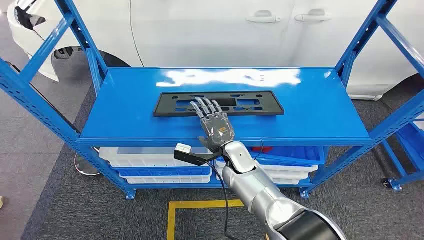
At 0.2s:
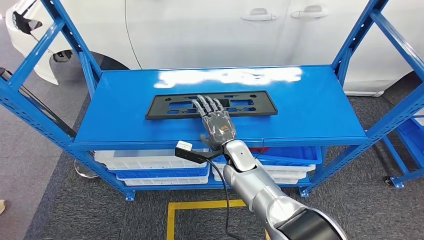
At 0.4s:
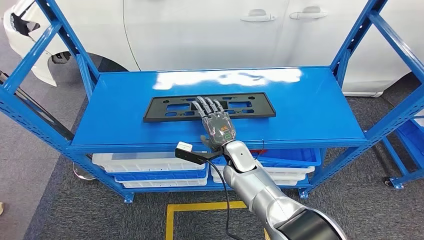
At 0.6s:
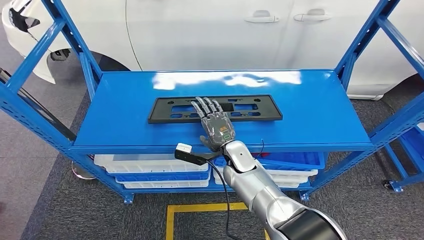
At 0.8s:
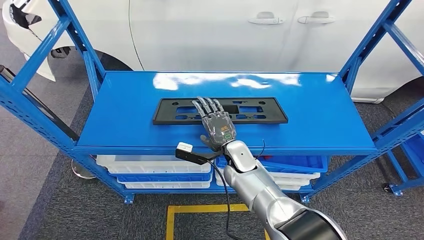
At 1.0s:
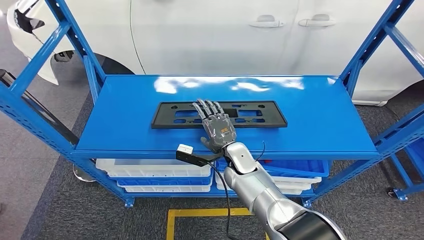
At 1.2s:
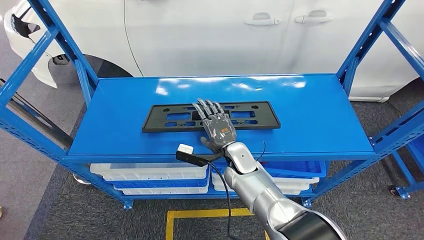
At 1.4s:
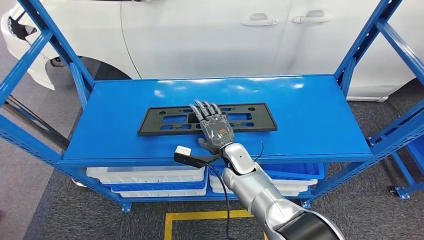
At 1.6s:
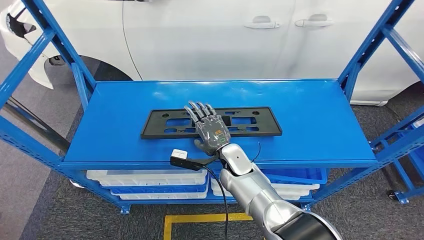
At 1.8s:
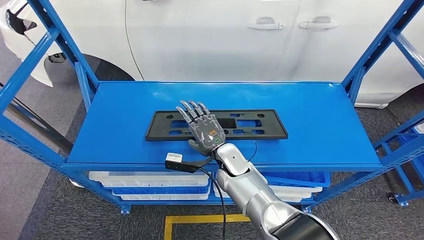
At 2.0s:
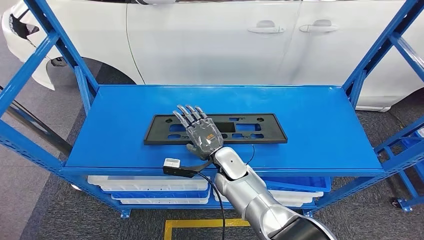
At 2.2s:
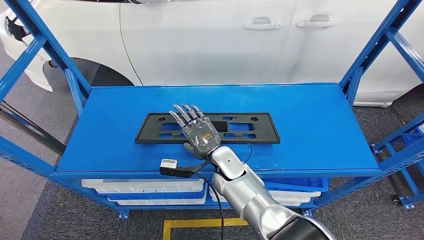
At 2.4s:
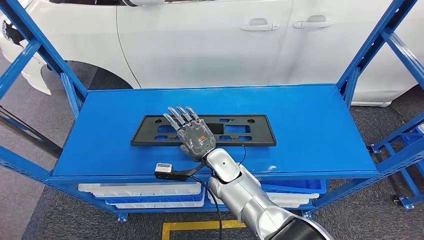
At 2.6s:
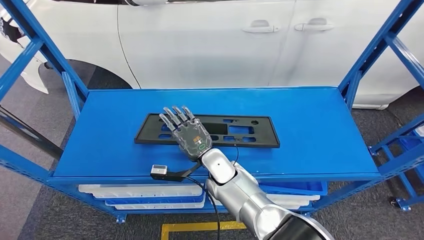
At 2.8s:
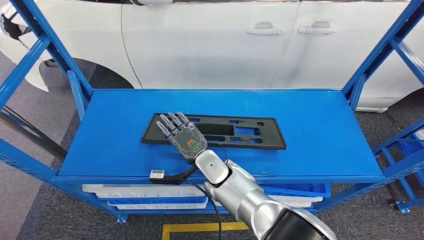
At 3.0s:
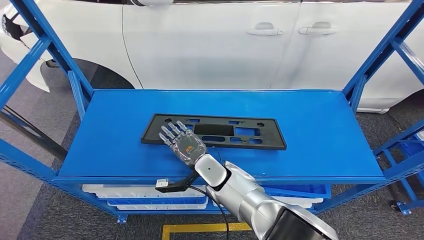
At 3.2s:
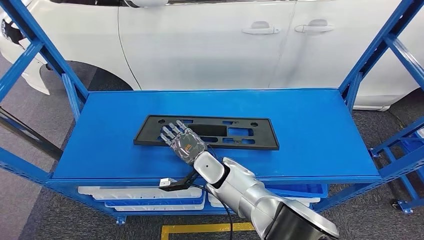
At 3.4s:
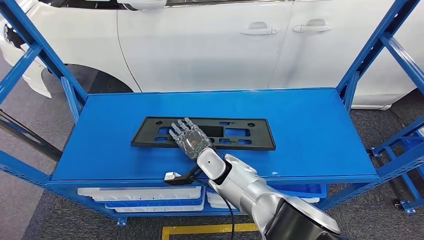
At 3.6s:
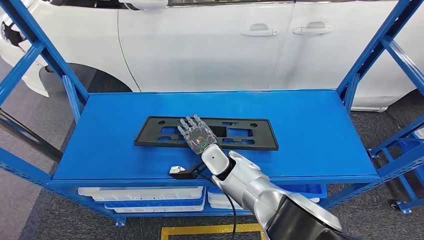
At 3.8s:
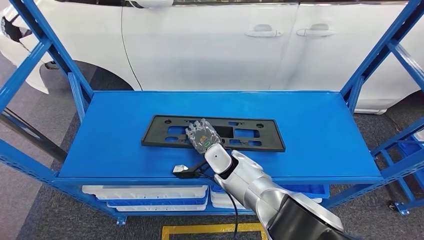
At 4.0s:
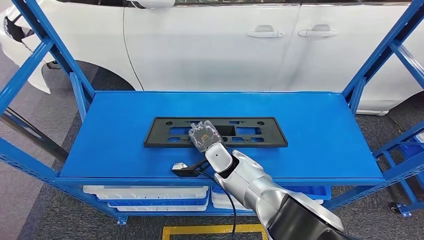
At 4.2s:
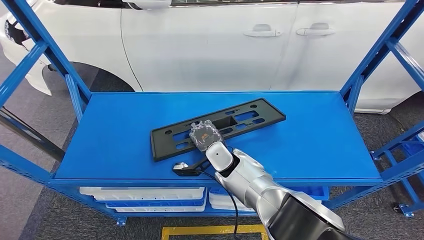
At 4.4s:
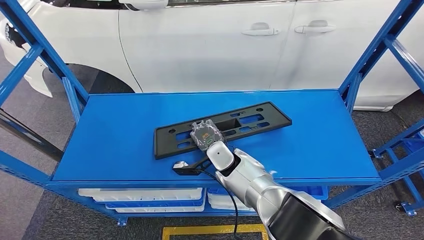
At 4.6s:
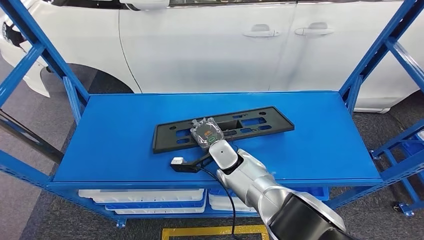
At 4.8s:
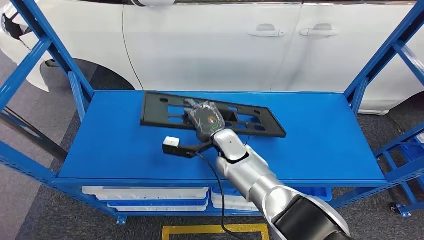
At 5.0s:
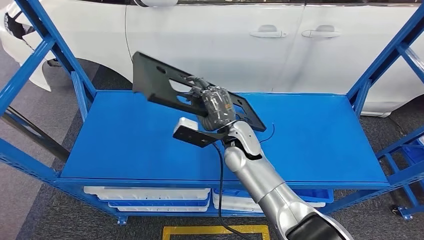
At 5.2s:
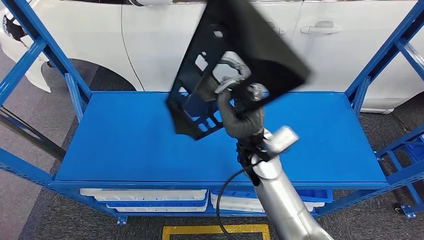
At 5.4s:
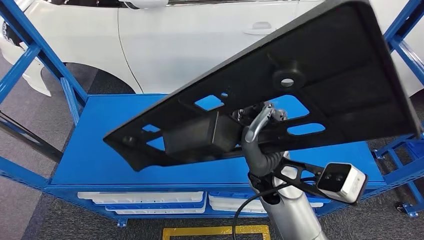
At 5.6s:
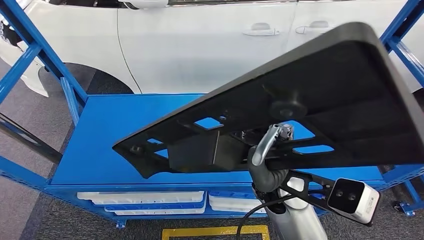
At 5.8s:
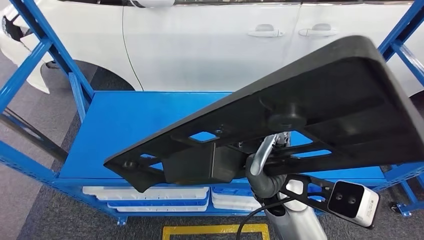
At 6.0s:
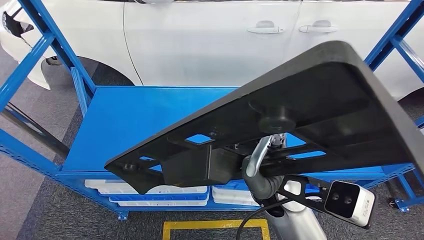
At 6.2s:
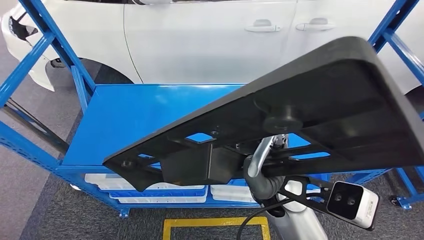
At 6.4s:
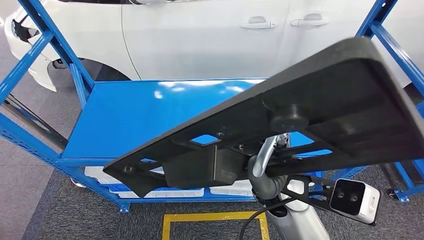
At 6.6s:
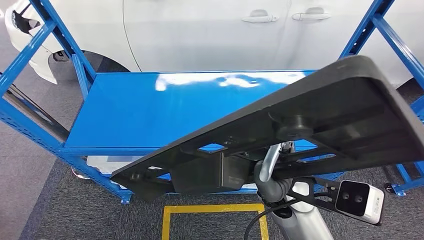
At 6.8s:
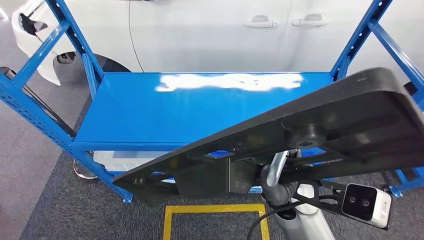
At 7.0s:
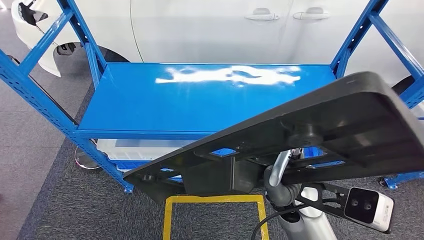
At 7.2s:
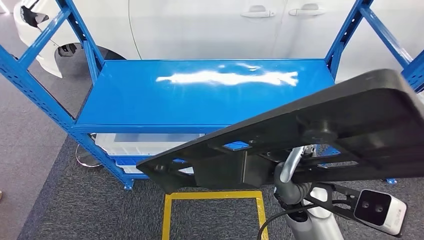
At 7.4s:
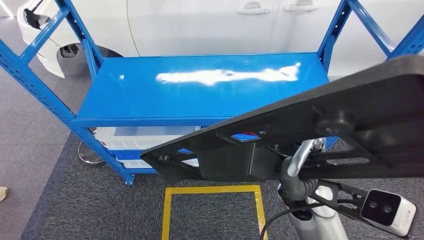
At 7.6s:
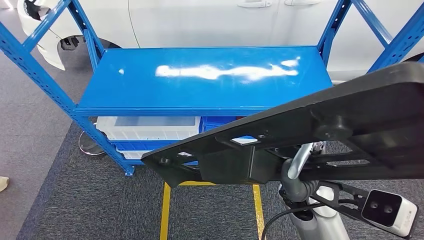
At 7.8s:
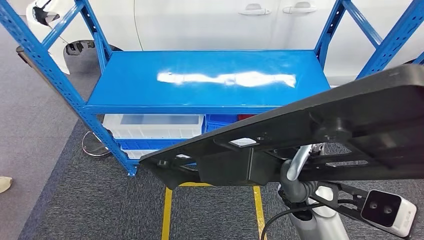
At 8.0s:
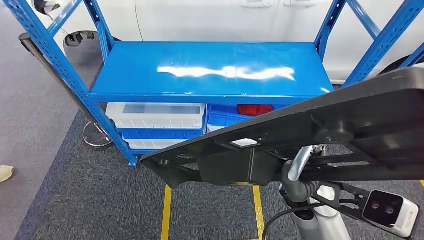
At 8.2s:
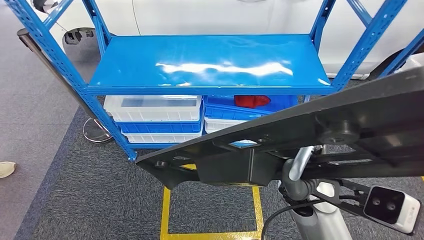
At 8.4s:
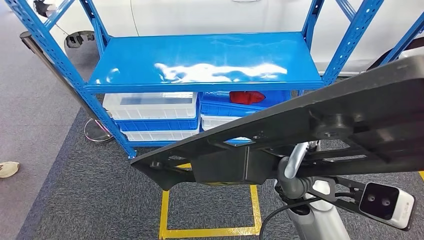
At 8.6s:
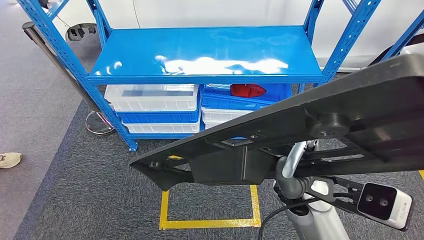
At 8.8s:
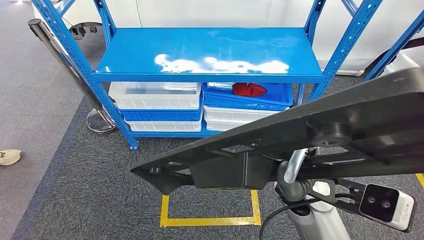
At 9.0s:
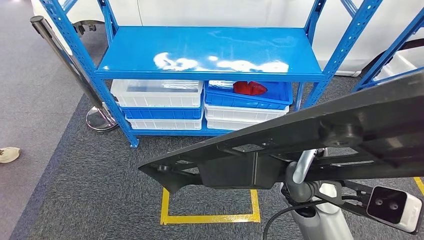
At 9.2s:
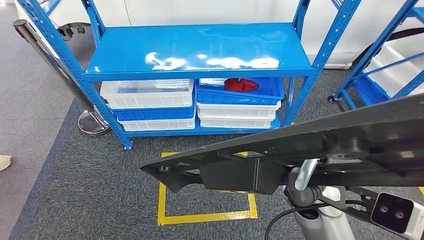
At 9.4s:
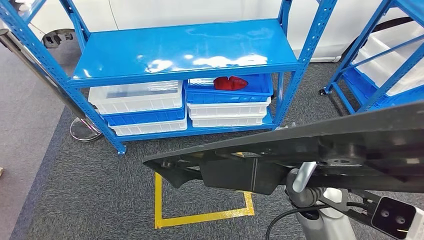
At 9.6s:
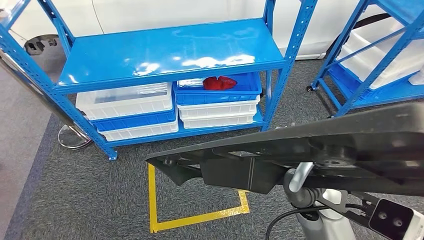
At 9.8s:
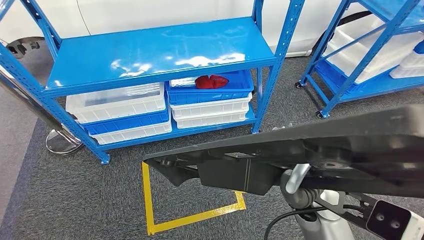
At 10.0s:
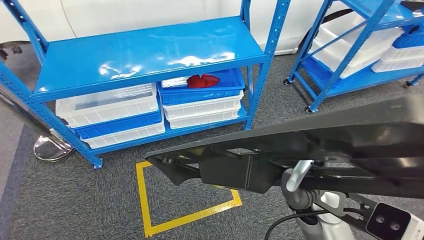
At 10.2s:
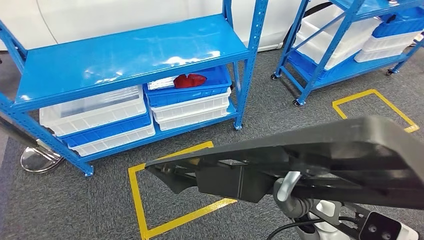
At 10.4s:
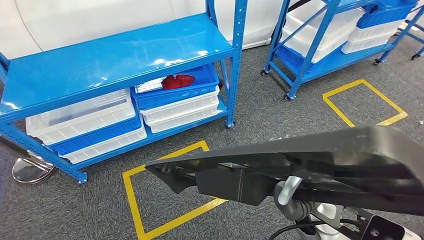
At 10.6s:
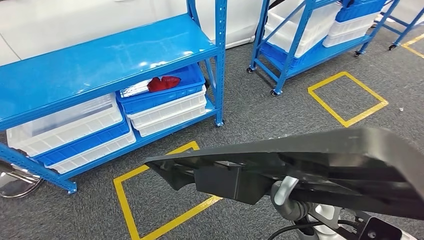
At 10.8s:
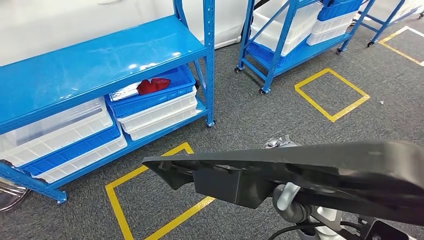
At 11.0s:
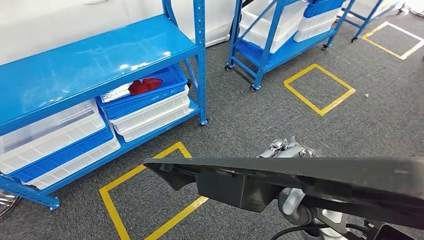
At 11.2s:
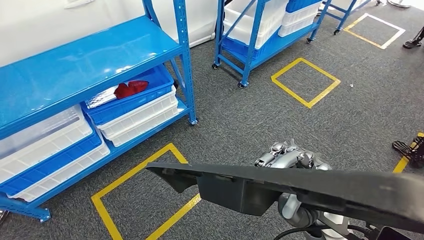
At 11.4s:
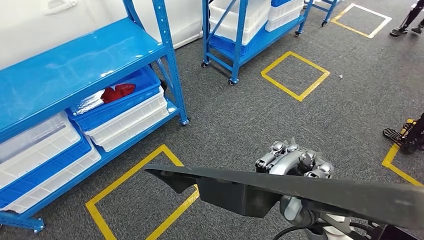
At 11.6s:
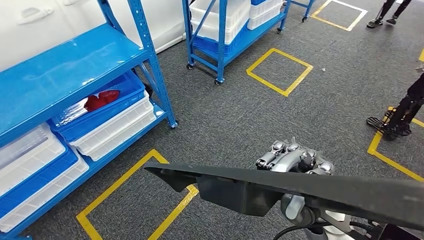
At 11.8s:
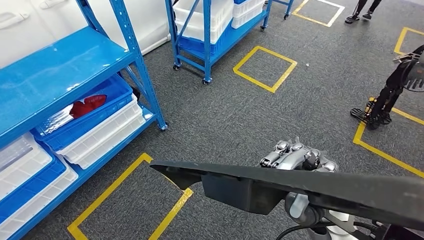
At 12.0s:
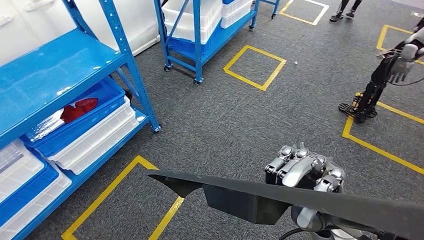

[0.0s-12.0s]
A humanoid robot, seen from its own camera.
Step, 0.0s to 6.0s: Pick up the small component from the shelf.

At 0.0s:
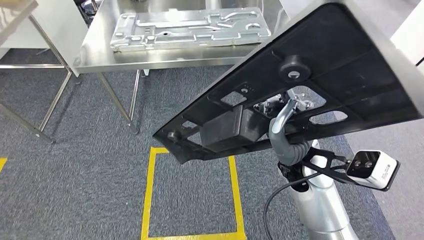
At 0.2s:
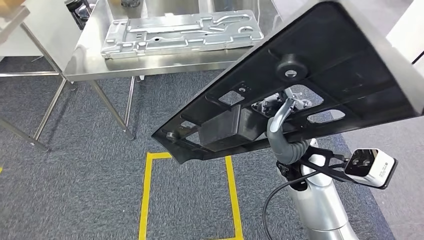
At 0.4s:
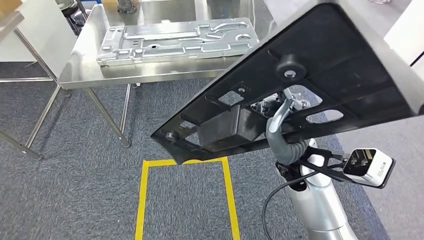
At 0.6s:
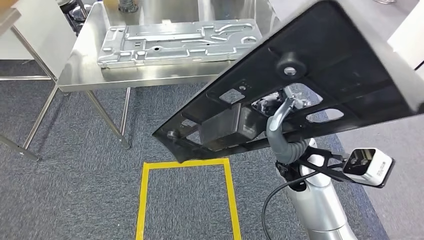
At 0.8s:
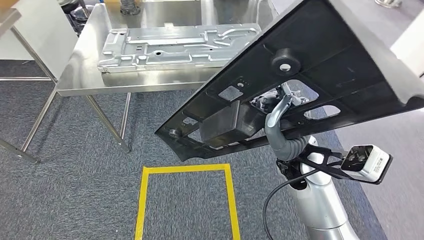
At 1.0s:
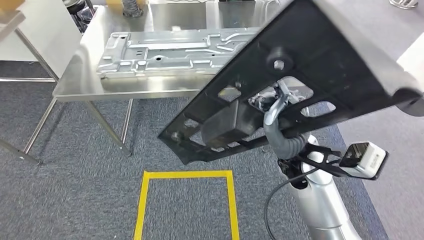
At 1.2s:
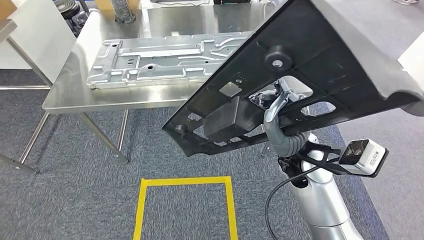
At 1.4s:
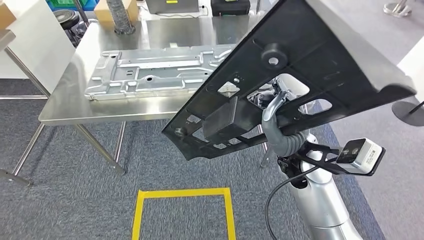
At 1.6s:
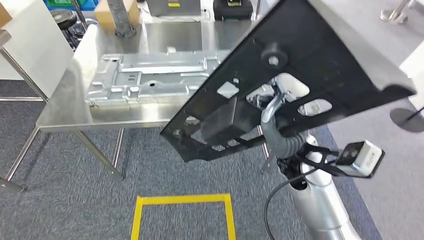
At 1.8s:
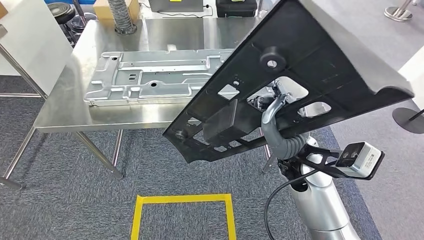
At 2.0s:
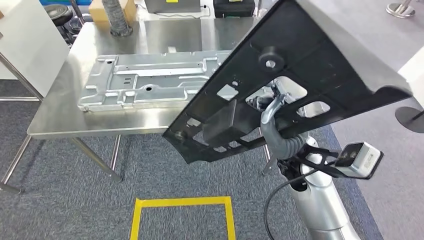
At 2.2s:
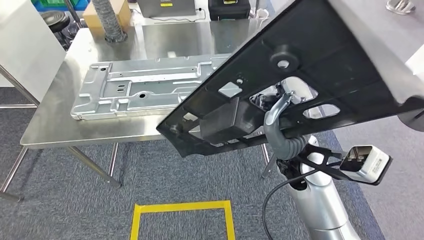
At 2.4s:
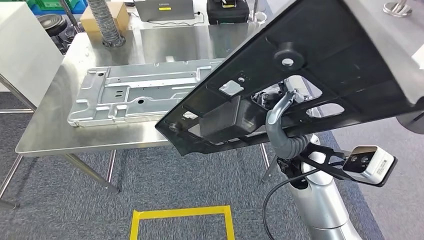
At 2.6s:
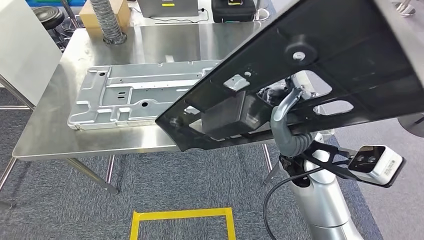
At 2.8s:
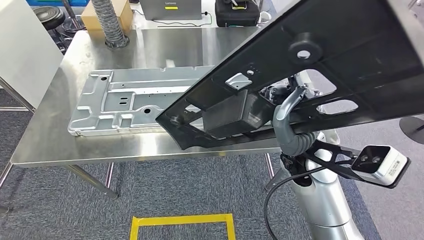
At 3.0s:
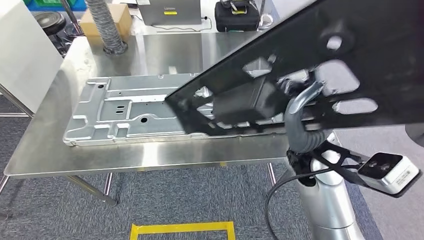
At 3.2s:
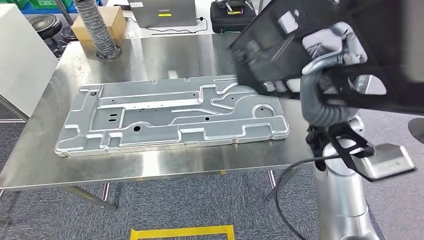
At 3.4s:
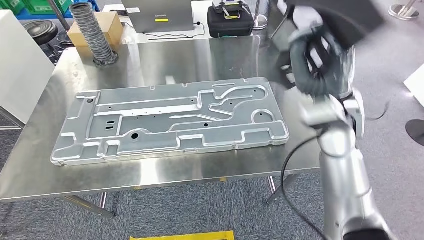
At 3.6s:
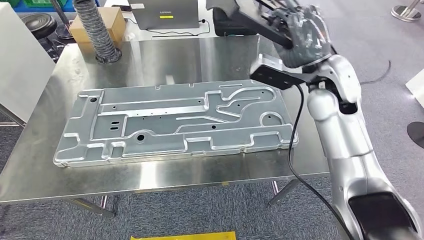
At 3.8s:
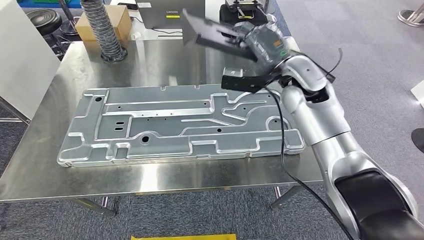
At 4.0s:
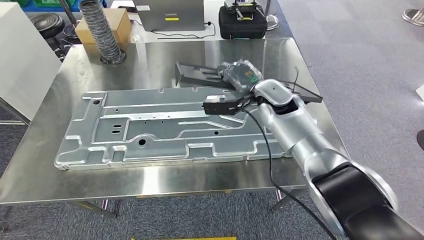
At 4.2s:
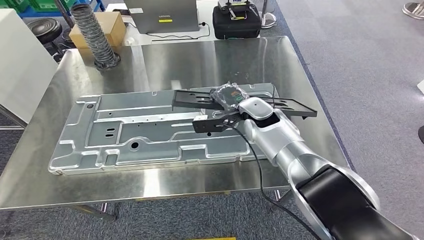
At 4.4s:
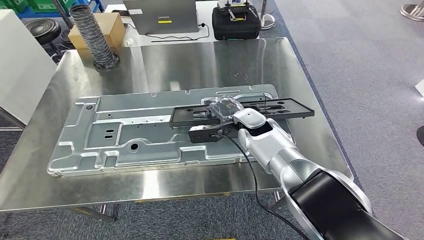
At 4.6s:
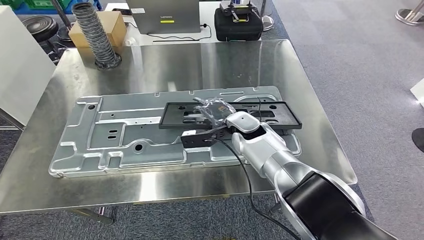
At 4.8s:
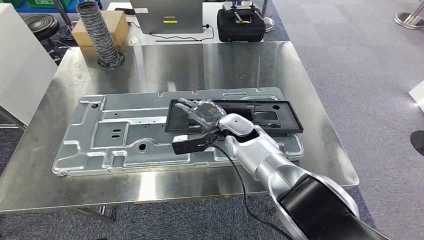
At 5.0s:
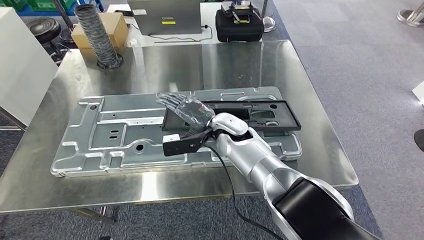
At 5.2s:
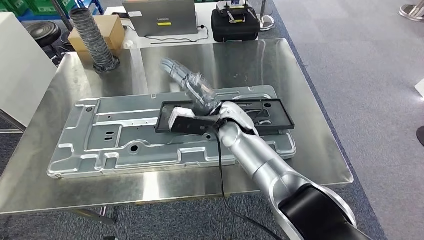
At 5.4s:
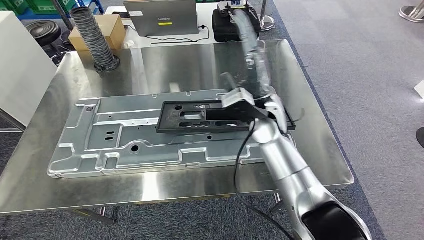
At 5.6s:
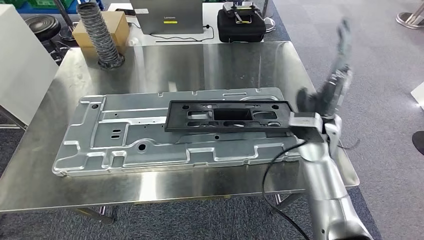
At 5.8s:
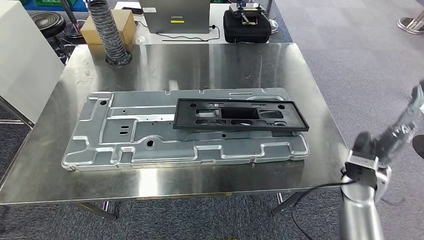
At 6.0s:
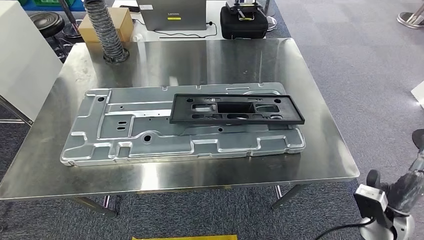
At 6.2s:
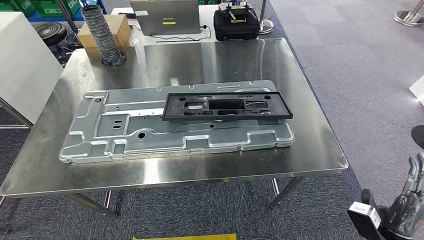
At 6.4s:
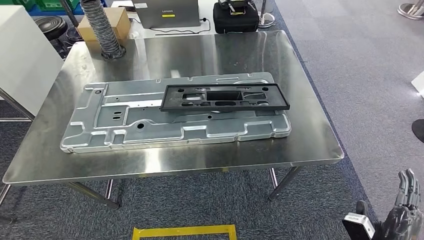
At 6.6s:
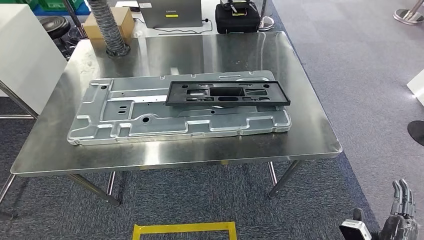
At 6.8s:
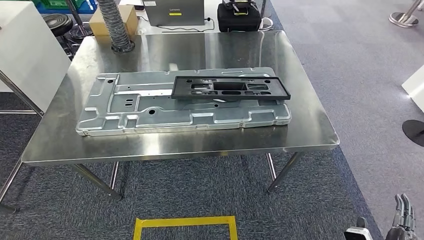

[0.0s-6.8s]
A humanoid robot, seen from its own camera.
Step, 1.4s to 6.4s: Insert the small component into the corresponding slot on the workbench.
